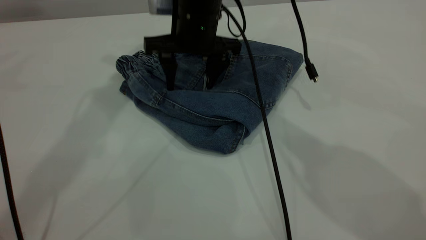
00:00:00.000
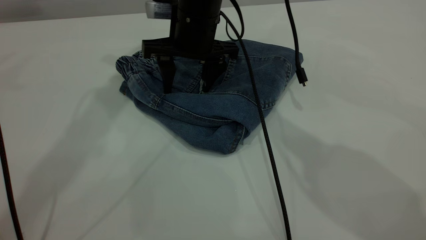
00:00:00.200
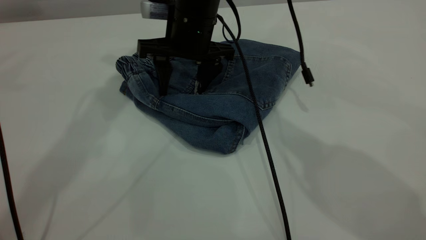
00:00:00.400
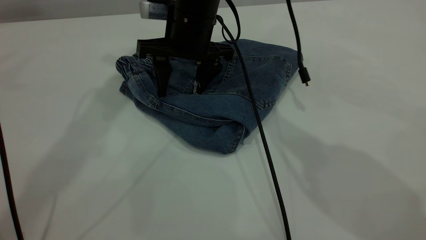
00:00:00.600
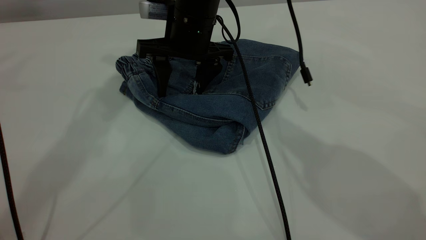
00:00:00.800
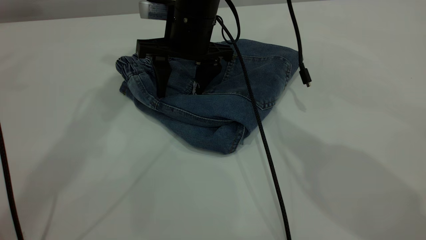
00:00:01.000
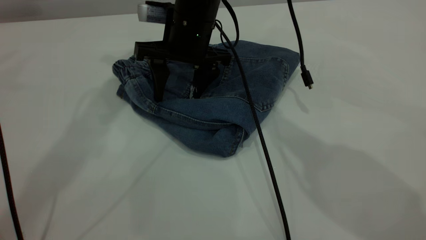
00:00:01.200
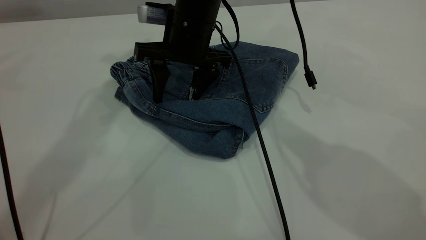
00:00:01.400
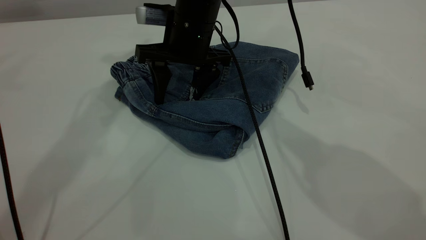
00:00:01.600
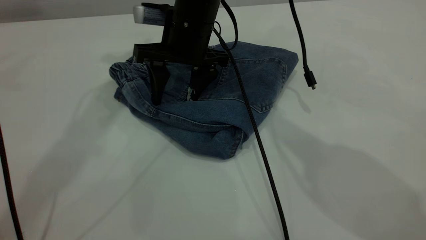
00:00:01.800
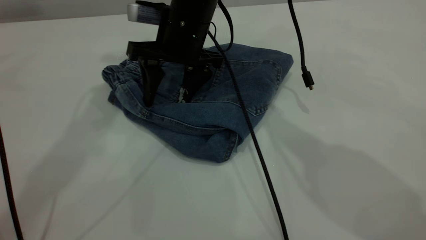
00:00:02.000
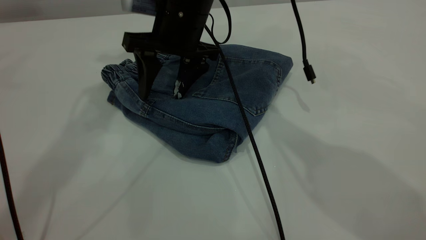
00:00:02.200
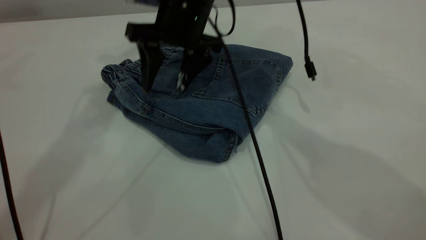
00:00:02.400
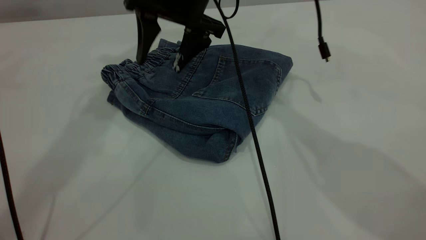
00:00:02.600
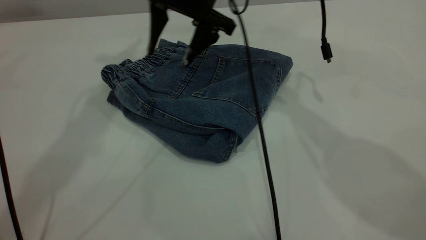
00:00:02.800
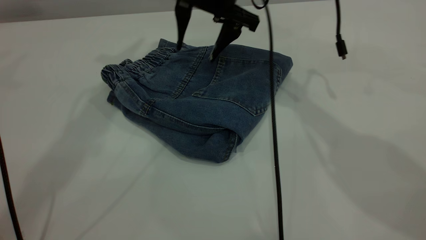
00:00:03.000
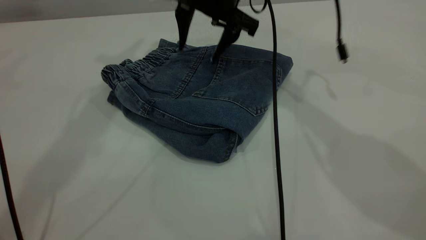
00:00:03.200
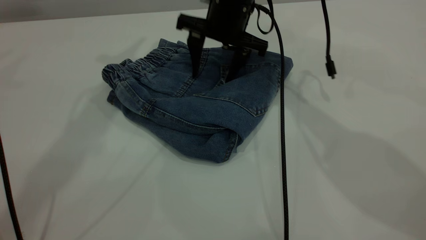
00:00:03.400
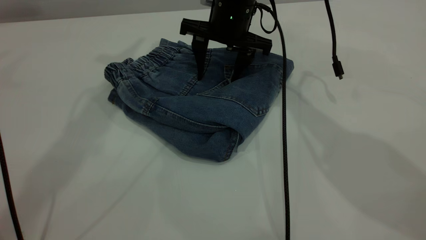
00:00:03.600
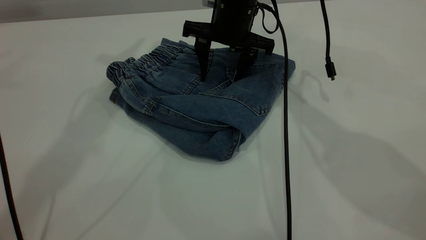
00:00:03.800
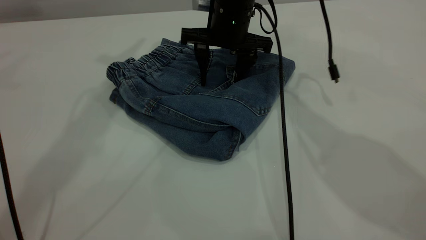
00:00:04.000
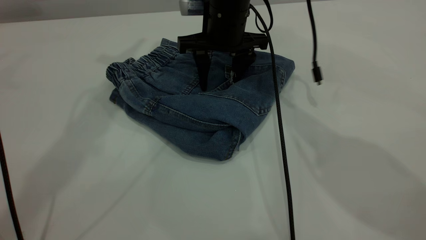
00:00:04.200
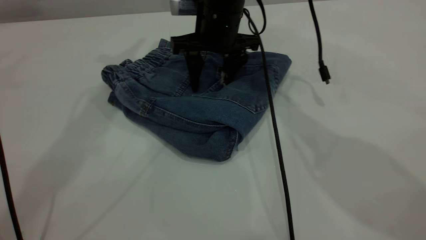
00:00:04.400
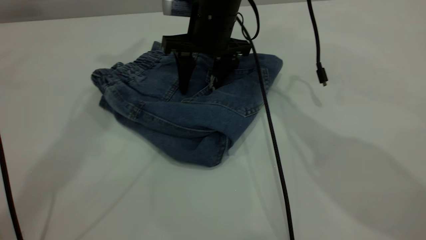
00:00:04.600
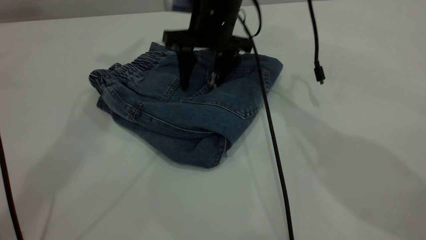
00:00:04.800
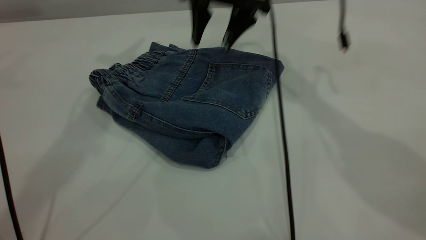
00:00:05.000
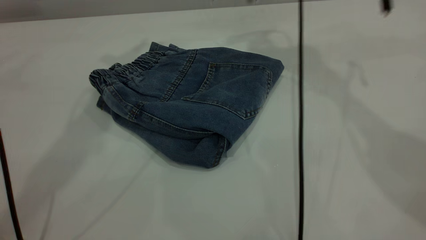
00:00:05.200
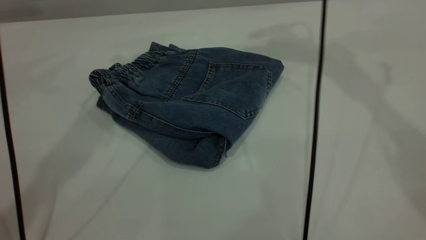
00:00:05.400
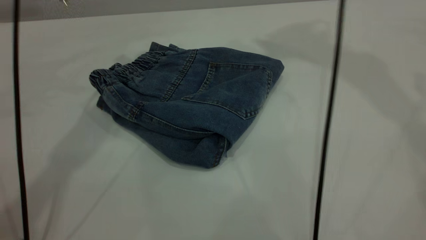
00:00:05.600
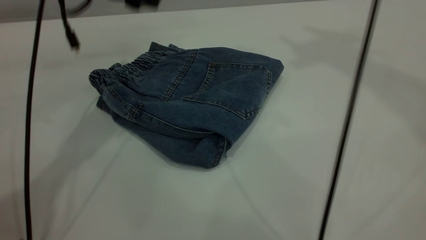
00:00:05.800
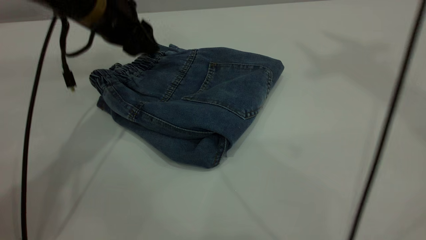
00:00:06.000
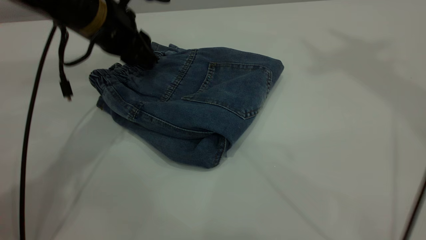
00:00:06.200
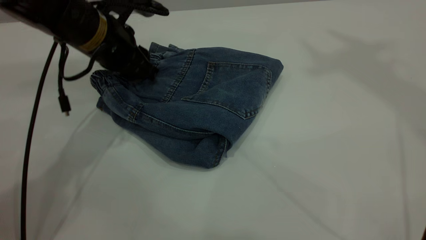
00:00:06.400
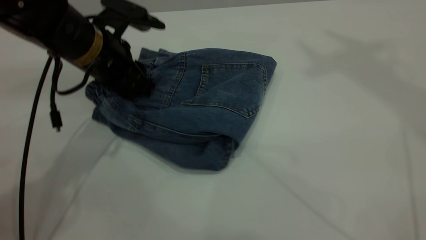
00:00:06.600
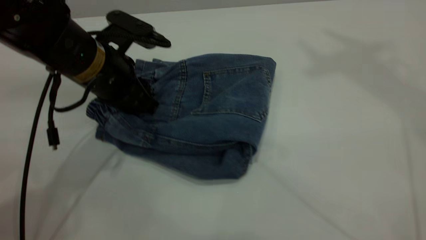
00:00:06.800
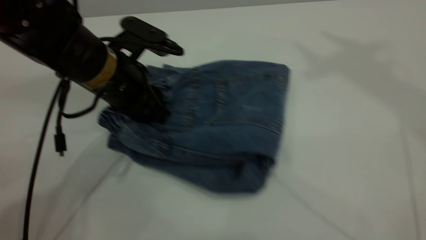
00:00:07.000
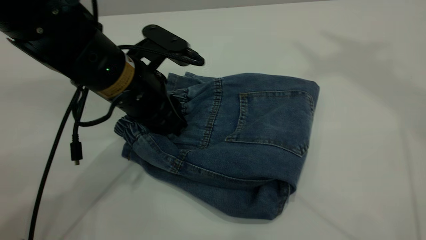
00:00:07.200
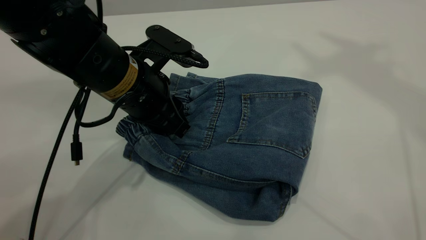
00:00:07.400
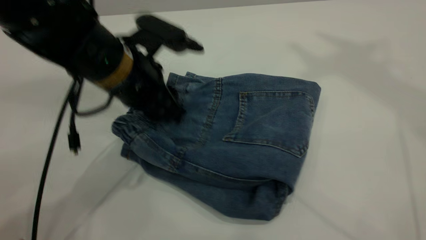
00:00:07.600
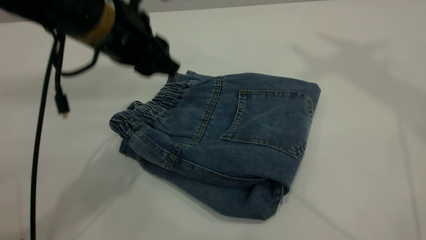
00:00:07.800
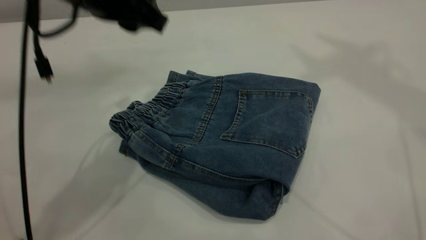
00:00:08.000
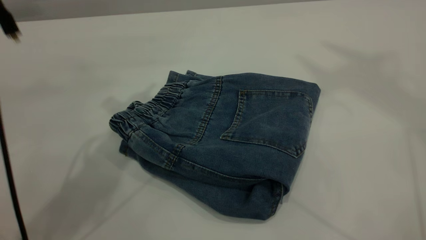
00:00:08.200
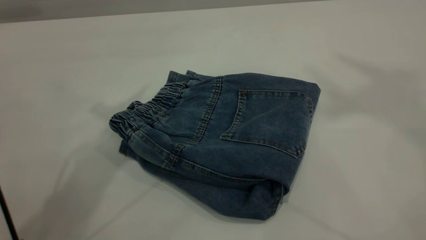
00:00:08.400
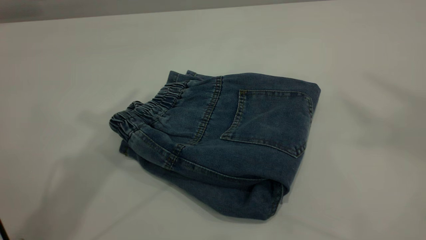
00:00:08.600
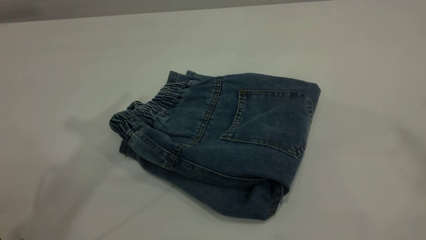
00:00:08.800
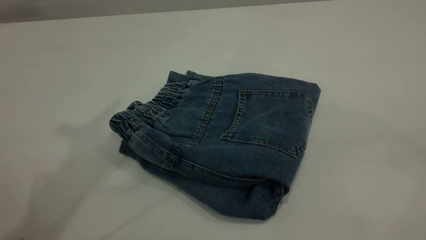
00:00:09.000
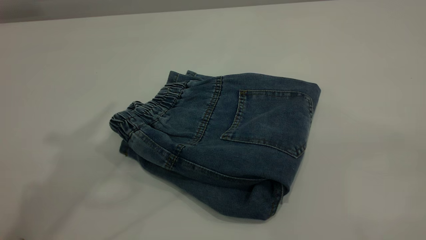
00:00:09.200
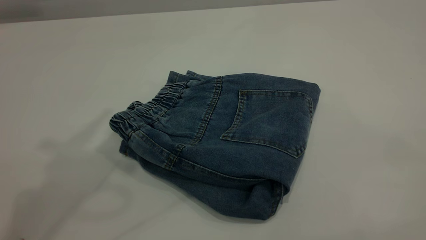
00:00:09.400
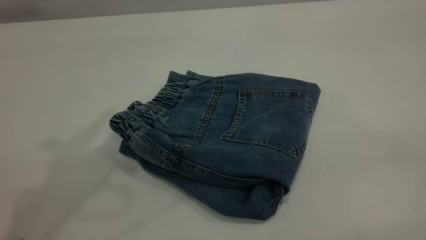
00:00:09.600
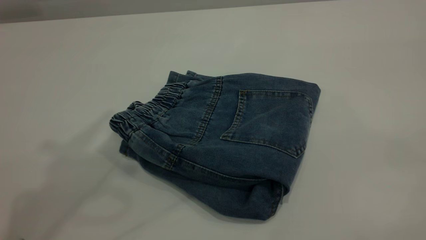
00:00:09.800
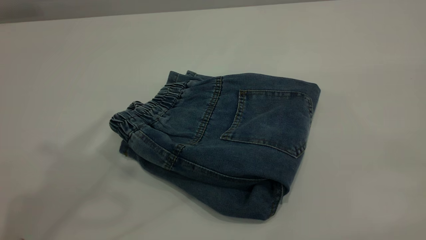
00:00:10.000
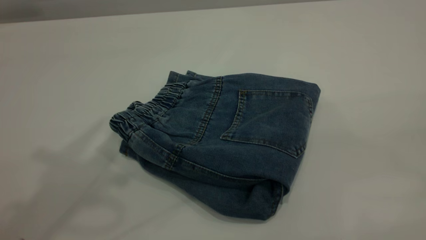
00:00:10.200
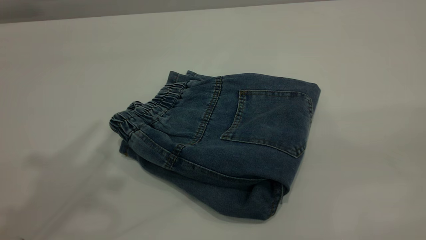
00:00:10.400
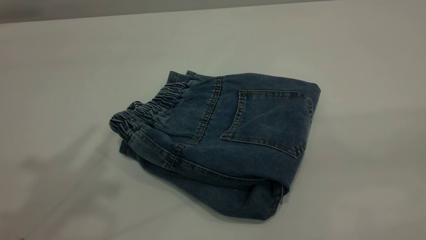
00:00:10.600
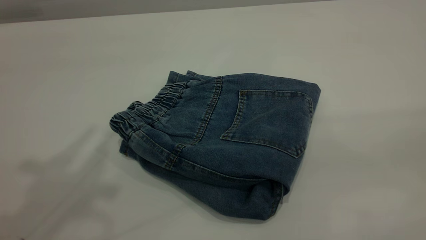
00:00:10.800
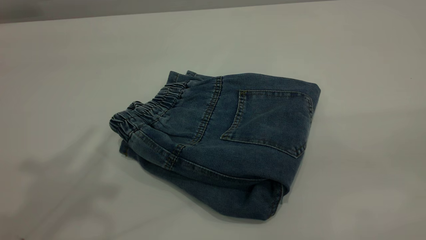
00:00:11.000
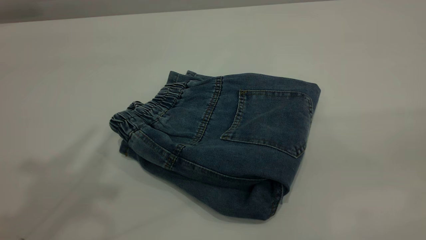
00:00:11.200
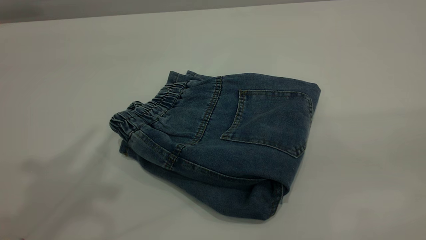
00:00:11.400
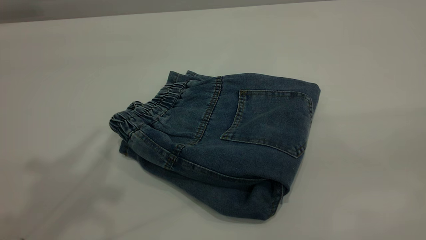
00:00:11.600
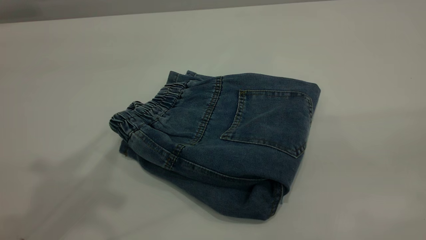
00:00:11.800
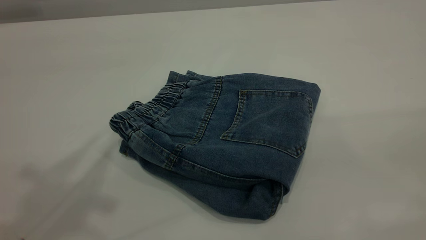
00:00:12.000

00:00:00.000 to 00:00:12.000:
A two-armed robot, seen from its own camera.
00:00:00.000 to 00:00:01.600: The grippers make only small movements.
00:00:01.600 to 00:00:03.000: The right gripper shifts roughly 5 cm to the right.
00:00:03.000 to 00:00:04.400: The right gripper goes about 5 cm downward.
00:00:04.400 to 00:00:06.000: The right gripper is displaced upward and to the right by about 50 cm. The left gripper shifts roughly 25 cm downward.
00:00:06.000 to 00:00:07.600: The left gripper is displaced backward by some 10 cm.
00:00:07.600 to 00:00:09.000: The left gripper is displaced upward by some 30 cm. The right gripper travels backward and upward by some 30 cm.
